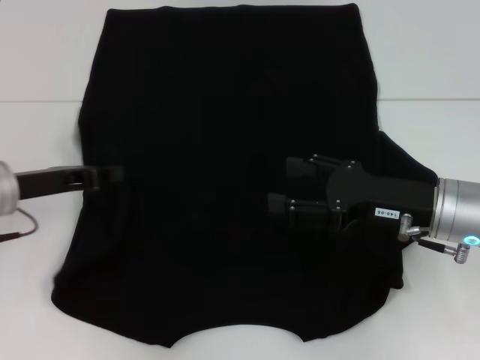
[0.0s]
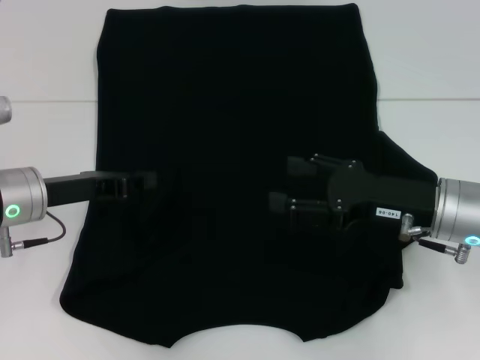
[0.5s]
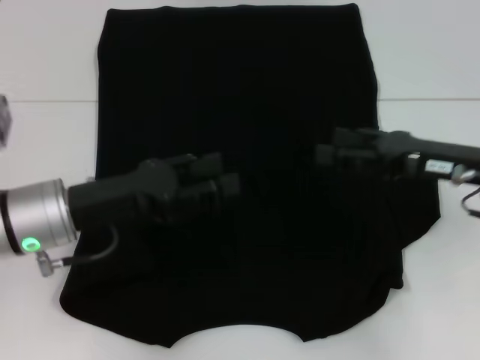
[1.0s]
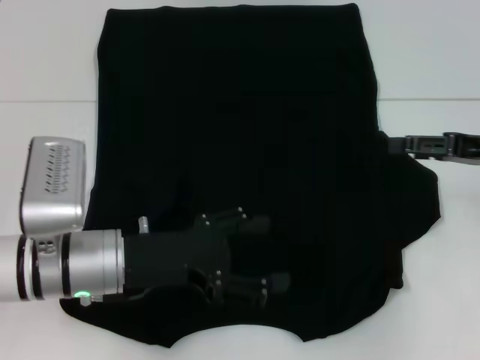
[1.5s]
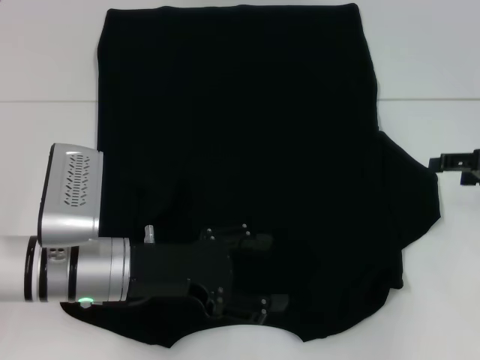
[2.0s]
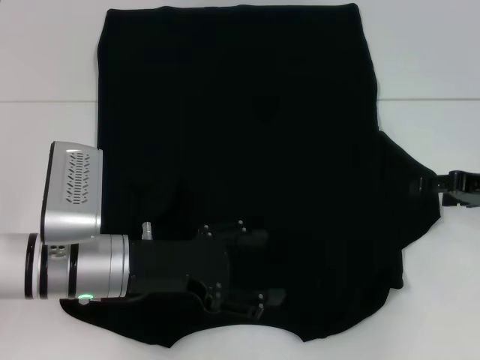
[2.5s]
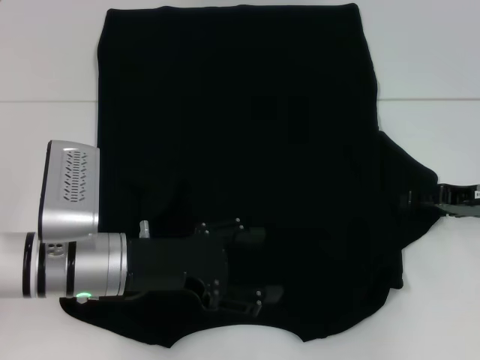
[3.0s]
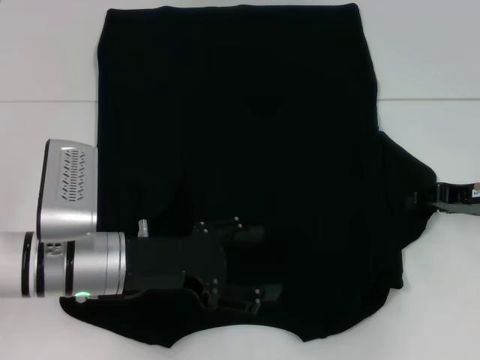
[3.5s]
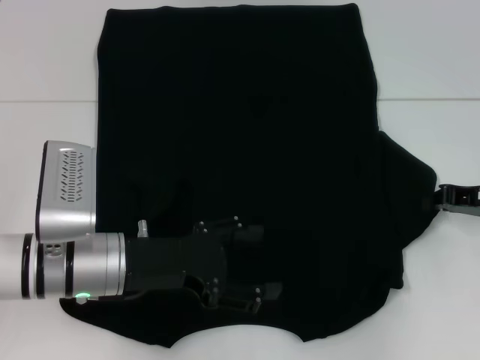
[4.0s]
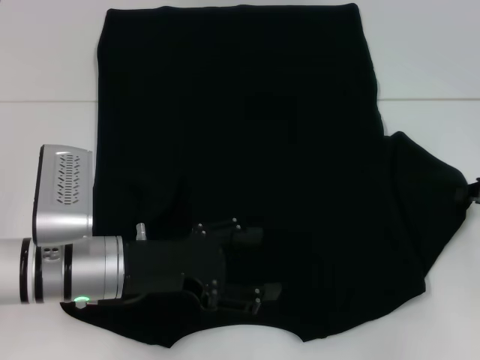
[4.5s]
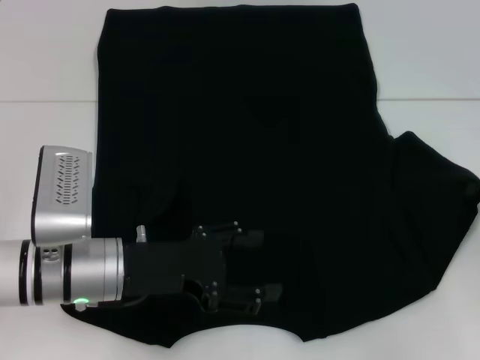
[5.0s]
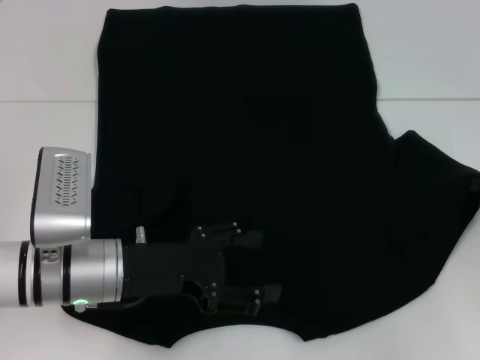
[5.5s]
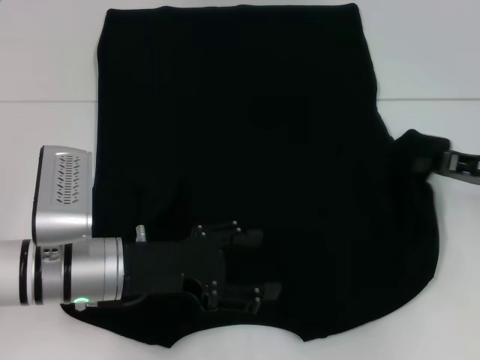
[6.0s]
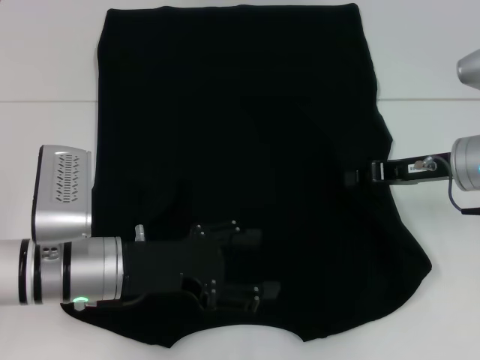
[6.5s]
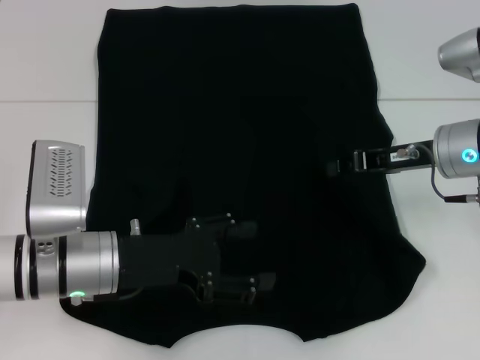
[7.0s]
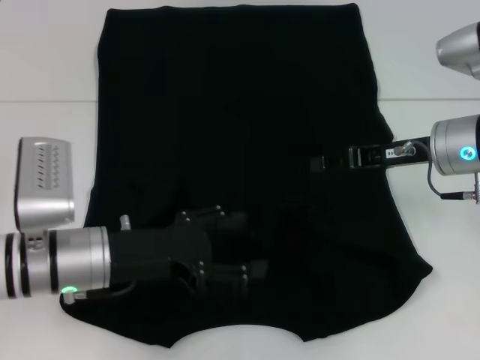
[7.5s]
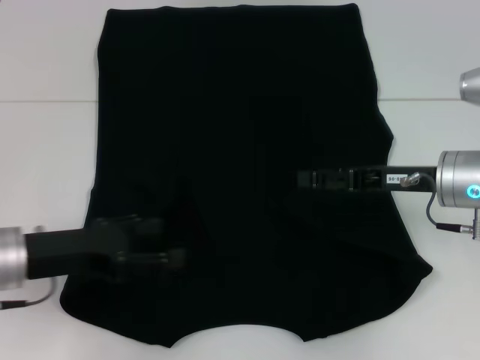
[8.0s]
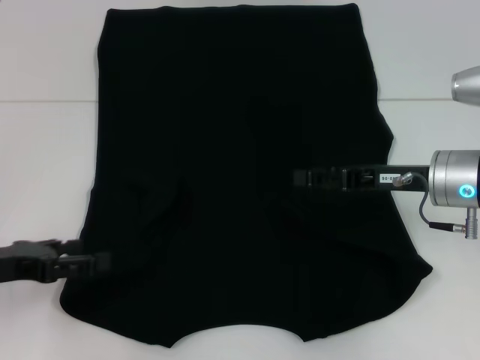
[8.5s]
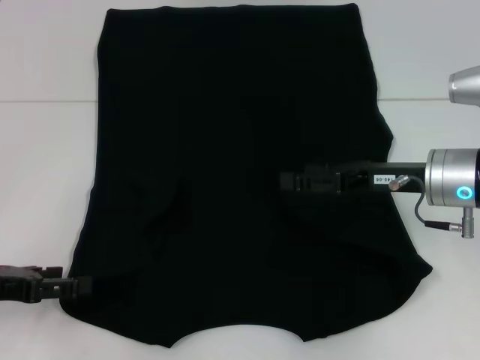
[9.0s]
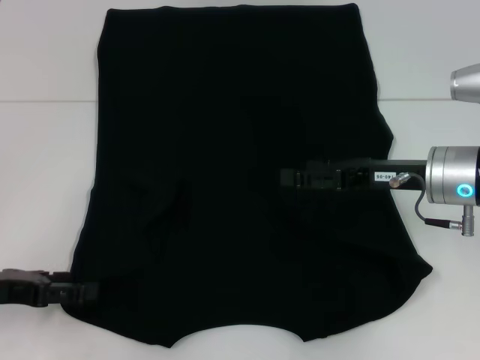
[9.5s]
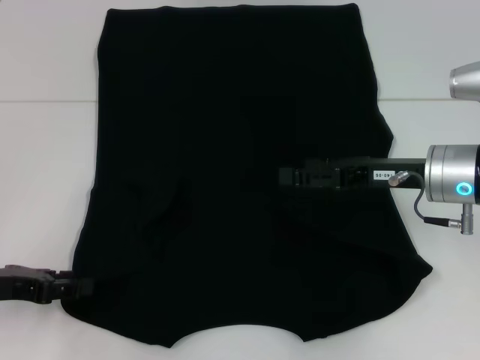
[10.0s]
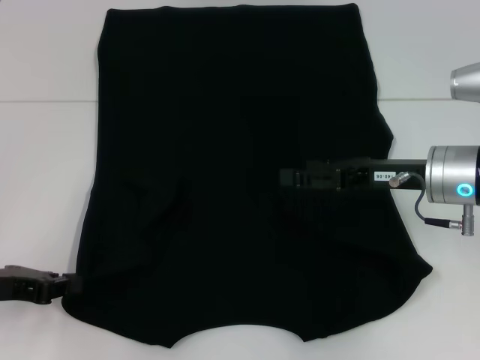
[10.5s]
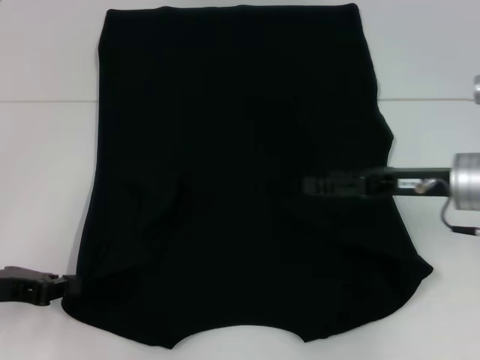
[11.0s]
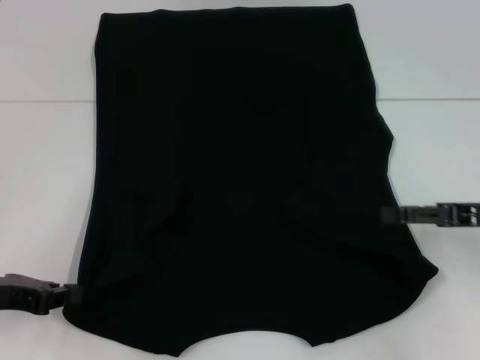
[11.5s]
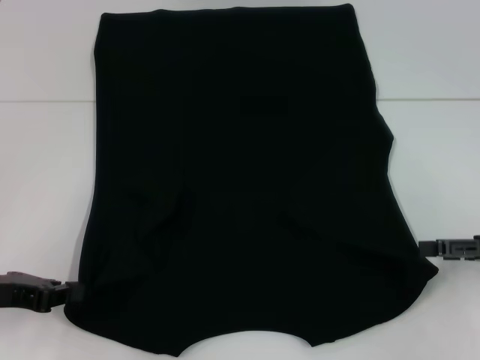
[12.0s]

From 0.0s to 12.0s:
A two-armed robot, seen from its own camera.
Step, from 0.5s to 7.5s: Fold the bottom right sleeve with your right hand.
Step, from 8.0s to 11.0s: Grab the bottom left corner with your left hand.
From 0.0s to 2.0s: The left gripper goes approximately 15 cm to the right and backward, and opens. The right gripper travels to the right by about 15 cm.
From 2.0s to 4.0s: The right gripper ends up approximately 5 cm from where it was, and closes.
From 4.0s to 6.0s: The grippers move only a little.
From 6.0s to 8.0s: Both grippers travel together to the left, roughly 10 cm. The right gripper opens up.
From 8.0s to 10.0s: The left gripper goes roughly 5 cm to the left.
From 10.0s to 12.0s: The right gripper goes about 15 cm to the right and backward; the left gripper closes up.

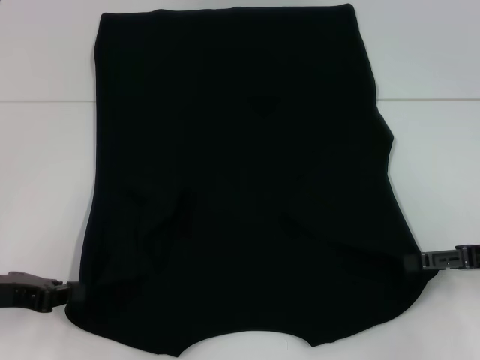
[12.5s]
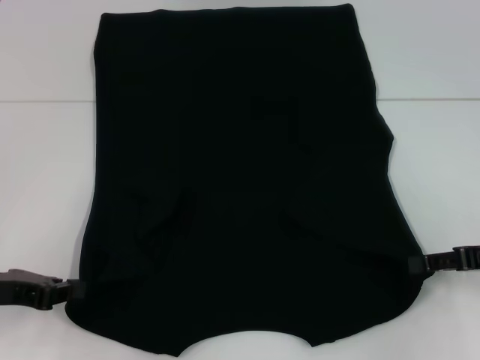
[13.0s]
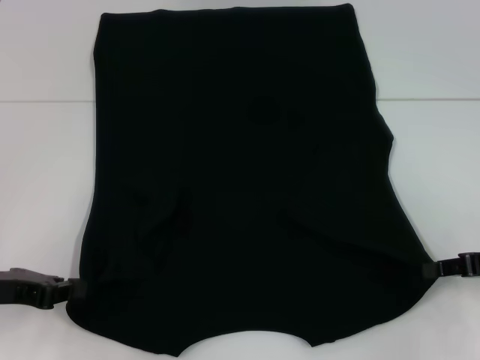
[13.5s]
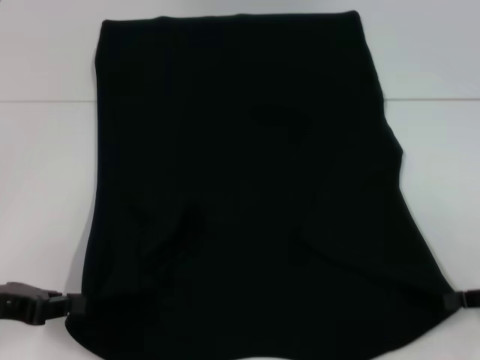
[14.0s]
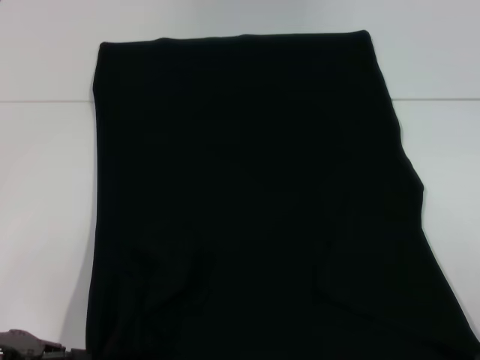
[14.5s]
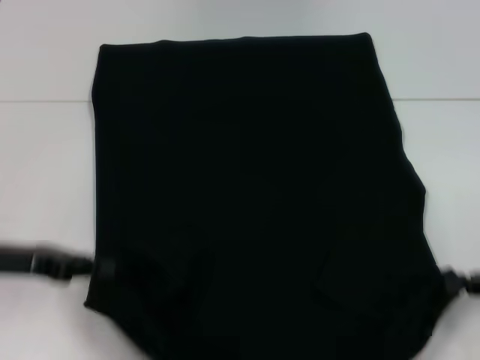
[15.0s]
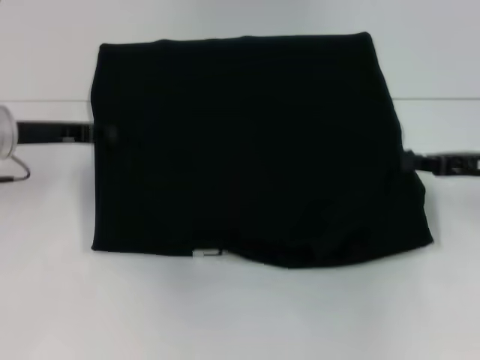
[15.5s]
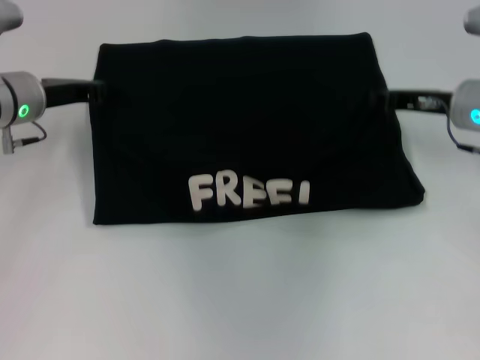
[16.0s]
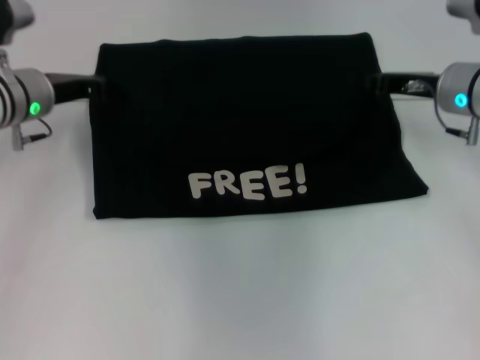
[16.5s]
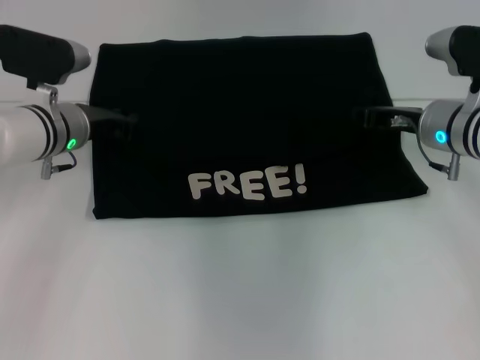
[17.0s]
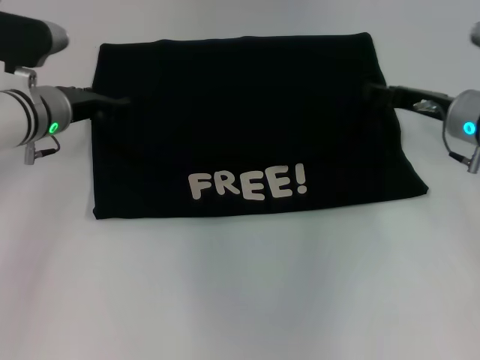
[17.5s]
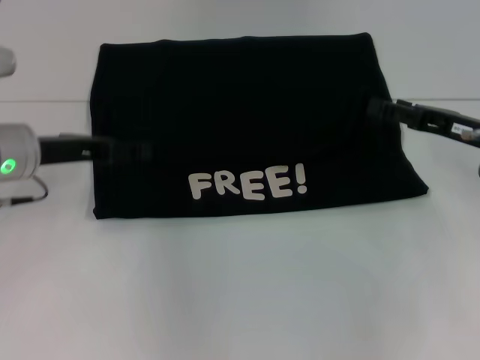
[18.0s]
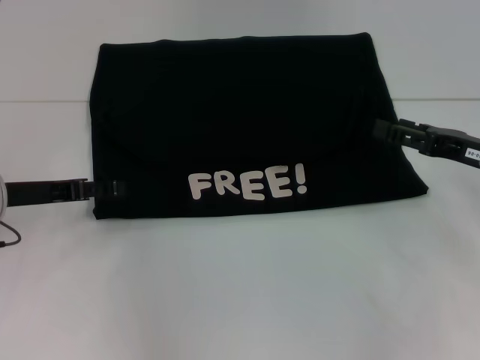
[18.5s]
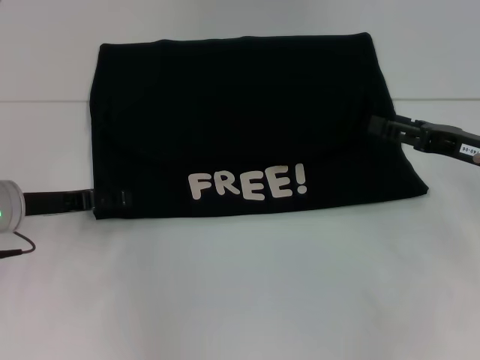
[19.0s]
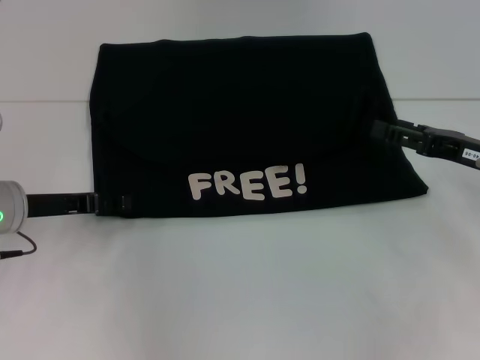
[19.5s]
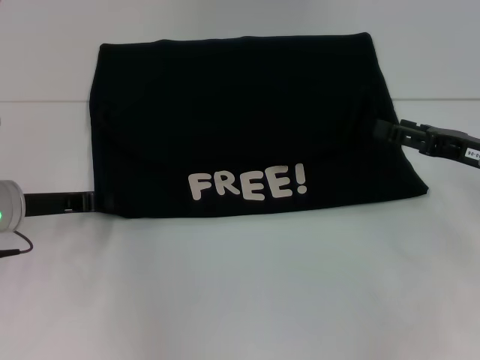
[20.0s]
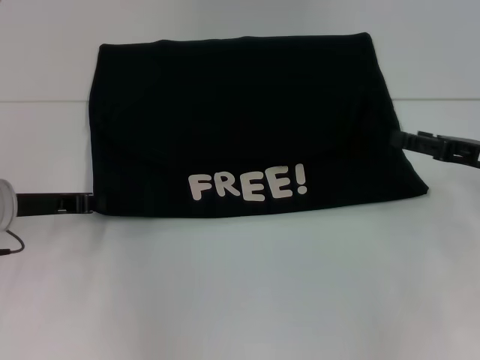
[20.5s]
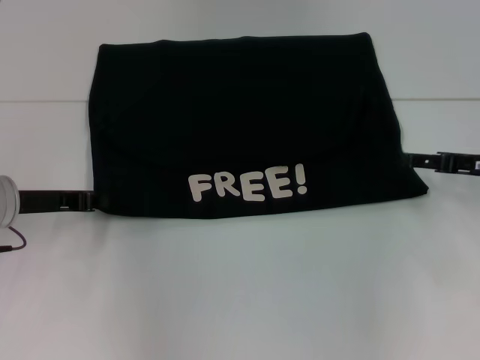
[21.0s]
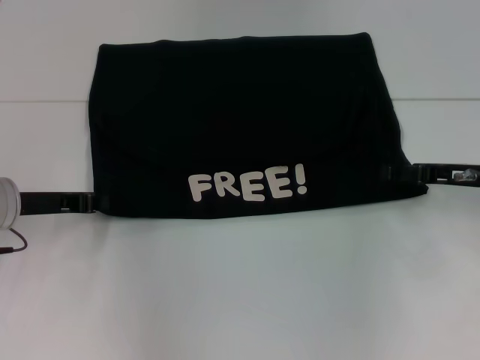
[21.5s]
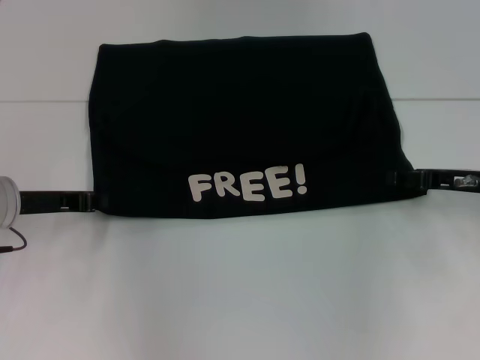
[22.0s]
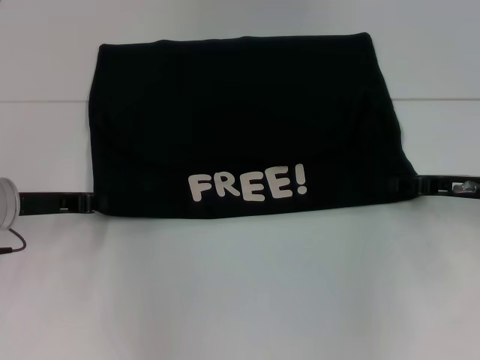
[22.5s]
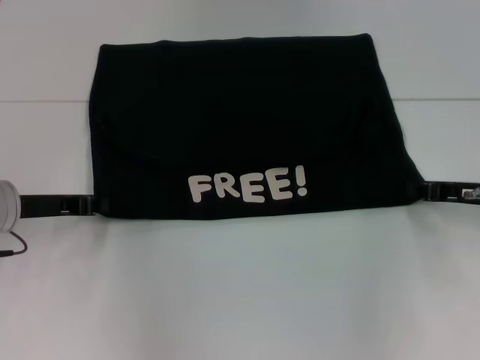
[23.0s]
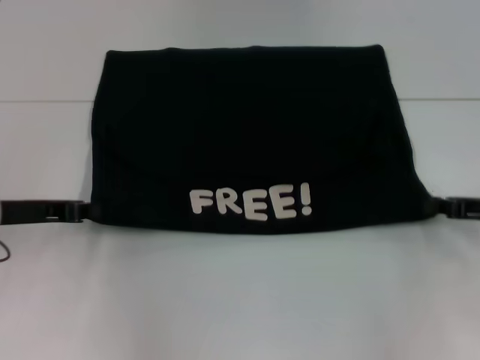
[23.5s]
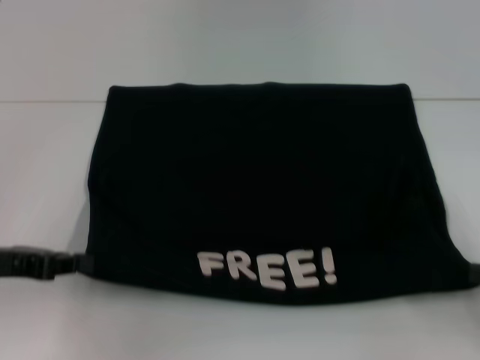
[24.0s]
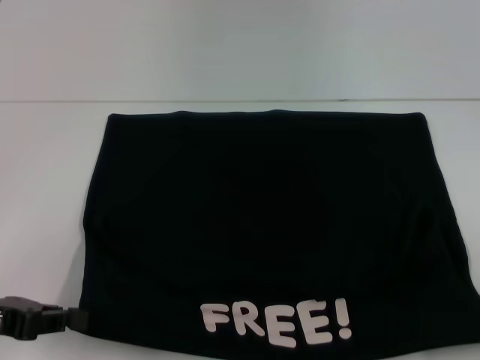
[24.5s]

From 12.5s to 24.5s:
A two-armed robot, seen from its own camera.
Step, from 14.0s to 17.5s: Fold the clothes with your left hand.
Step, from 14.0s to 17.5s: Fold the clothes with your right hand.
From 12.5s to 14.5s: The right gripper moves backward, roughly 10 cm, and closes.
From 14.5s to 16.5s: The right gripper is displaced forward and to the left by approximately 25 cm. Meanwhile the left gripper moves forward, roughly 25 cm.
From 16.5s to 18.5s: The right gripper shifts approximately 10 cm backward and to the right, and opens up. Meanwhile the left gripper is displaced backward by roughly 10 cm, and opens its fingers.
From 18.5s to 20.5s: The left gripper closes up.
From 20.5s to 22.5s: The grippers stay close to where they were, moving slightly.
From 22.5s to 24.5s: The left gripper is displaced backward by about 10 cm; the right gripper shifts approximately 20 cm backward and to the right, and closes.

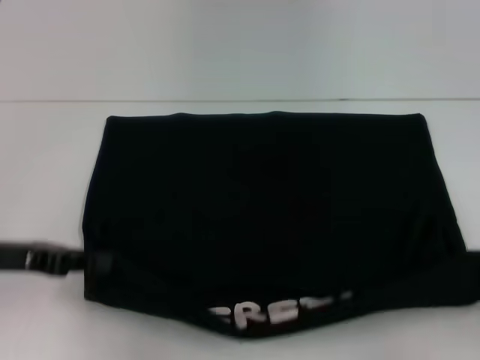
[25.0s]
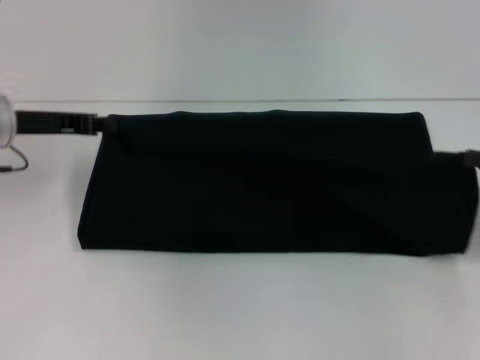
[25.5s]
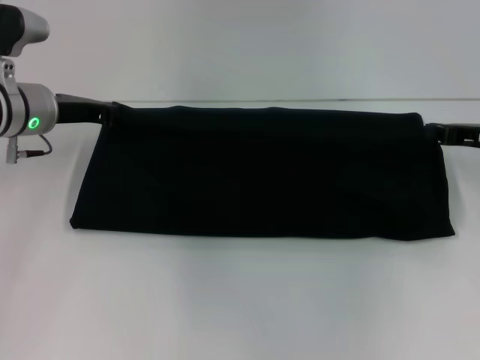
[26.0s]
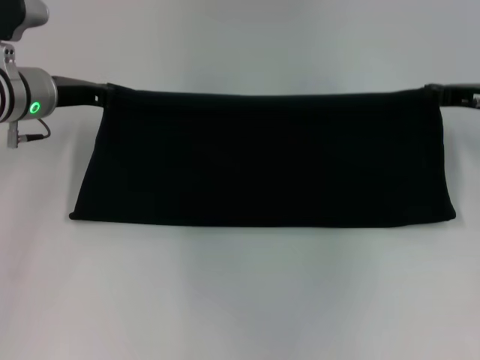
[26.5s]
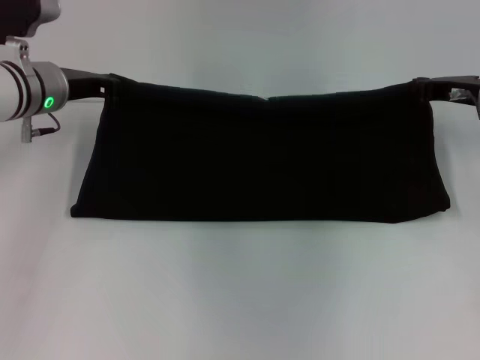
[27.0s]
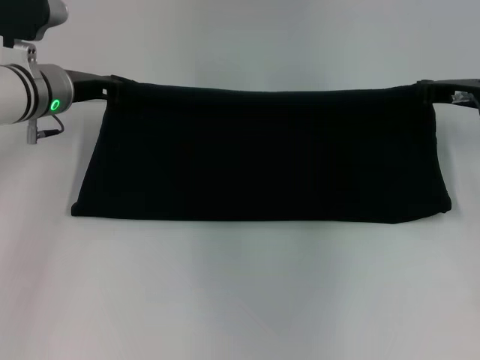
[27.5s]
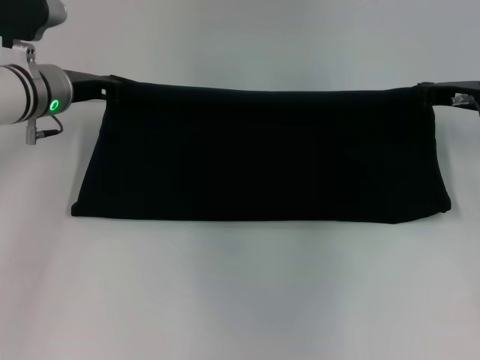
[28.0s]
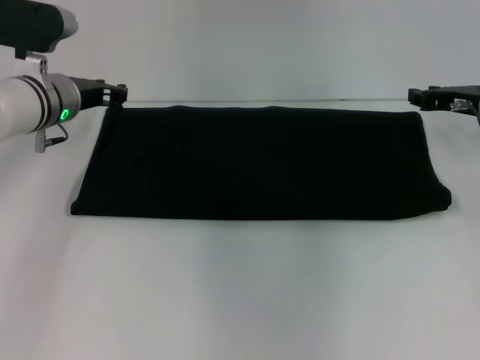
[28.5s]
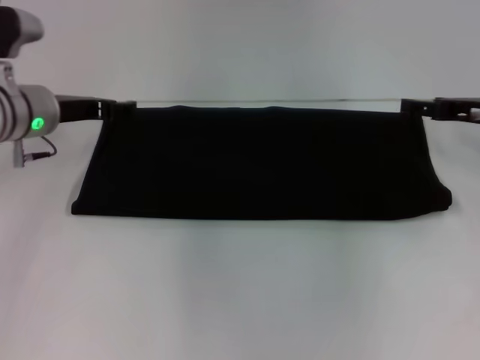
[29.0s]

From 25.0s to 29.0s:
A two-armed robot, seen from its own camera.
From 25.0s to 27.0s: The right gripper moves forward and to the left, some 25 cm. The left gripper heads forward and to the right, covering about 20 cm.
From 27.0s to 29.0s: The right gripper opens up. Meanwhile the left gripper opens.
